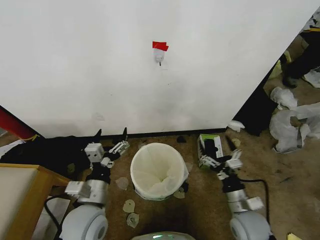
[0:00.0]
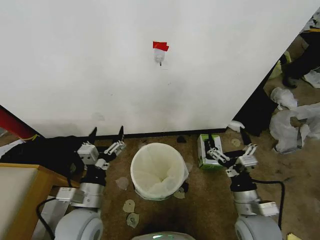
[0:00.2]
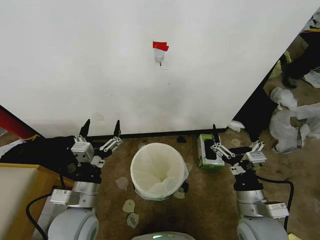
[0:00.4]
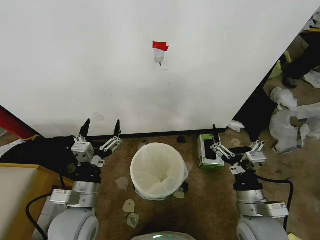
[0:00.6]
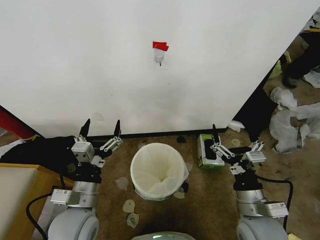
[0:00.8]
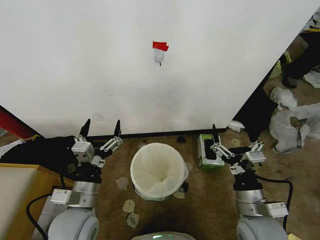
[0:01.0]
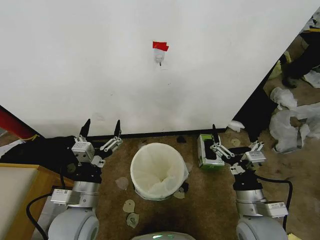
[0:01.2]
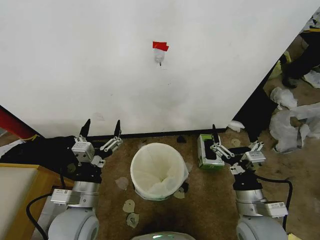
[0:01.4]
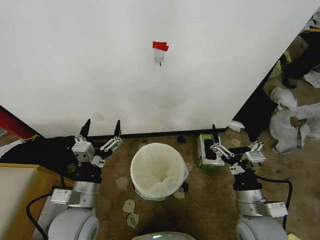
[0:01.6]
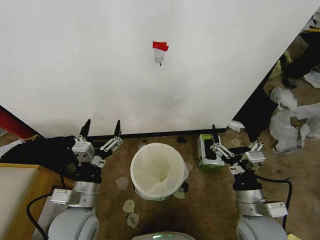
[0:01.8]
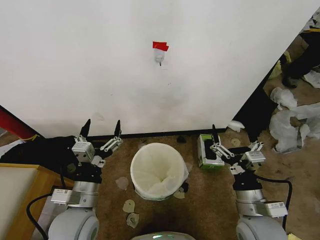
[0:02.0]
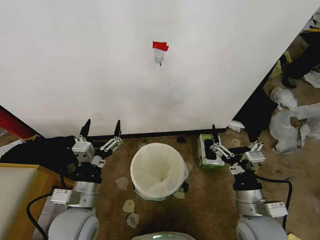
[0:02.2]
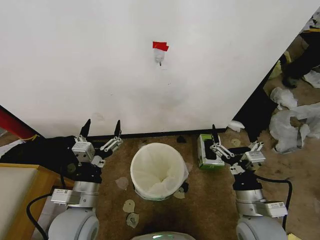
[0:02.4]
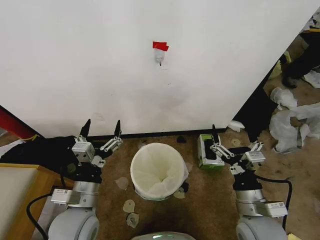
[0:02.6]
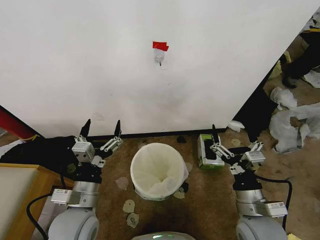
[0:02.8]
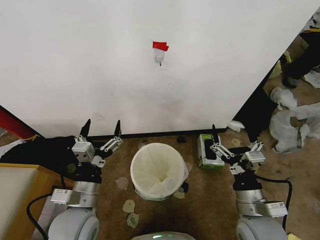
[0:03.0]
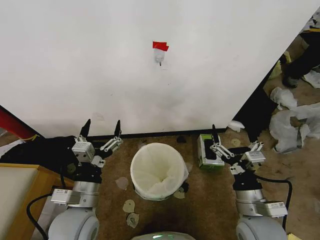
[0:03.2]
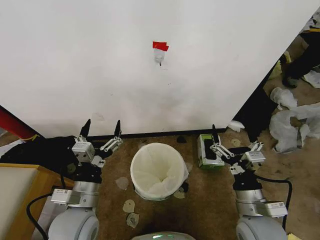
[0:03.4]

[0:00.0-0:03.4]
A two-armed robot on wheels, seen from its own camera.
Task of the whole recording: Place the garbage bag over the trash bin.
0:00.0 to 0:01.6: The right gripper moves upward, approximately 5 cm.
0:01.6 to 0:03.4: Both grippers stay put.

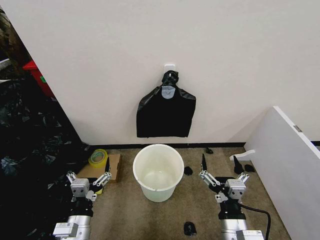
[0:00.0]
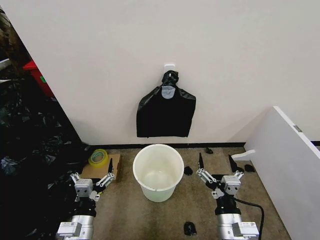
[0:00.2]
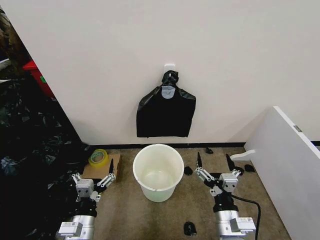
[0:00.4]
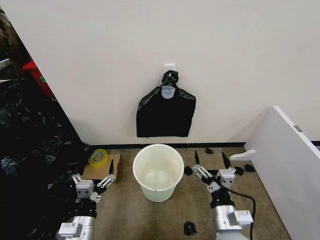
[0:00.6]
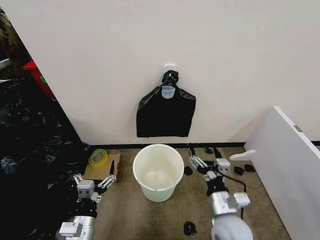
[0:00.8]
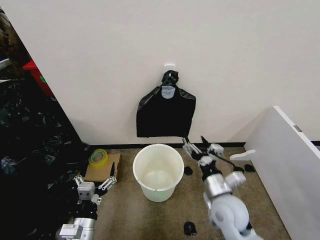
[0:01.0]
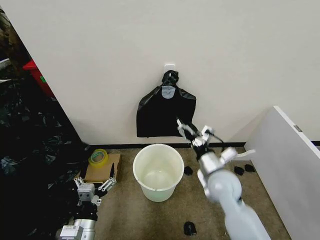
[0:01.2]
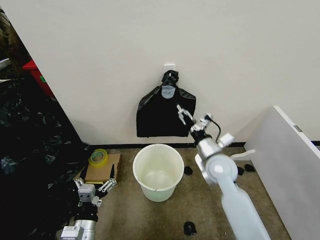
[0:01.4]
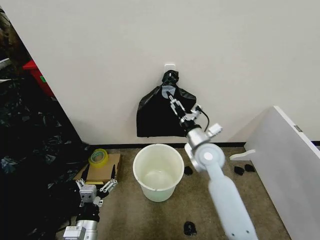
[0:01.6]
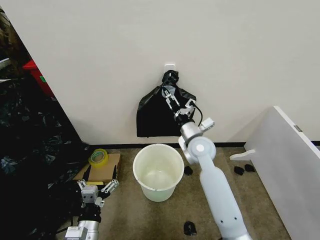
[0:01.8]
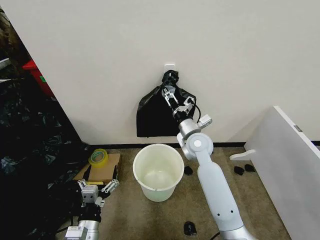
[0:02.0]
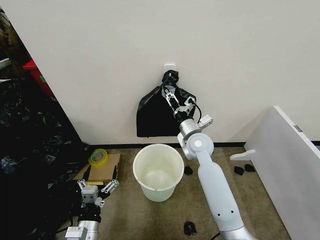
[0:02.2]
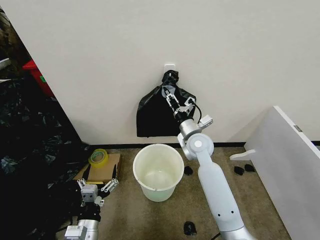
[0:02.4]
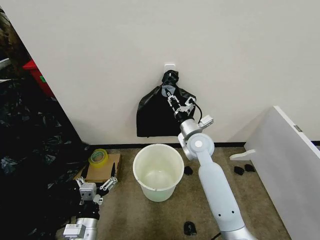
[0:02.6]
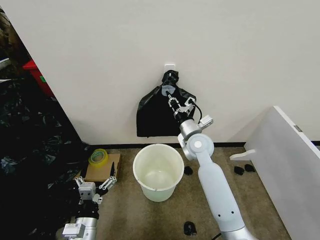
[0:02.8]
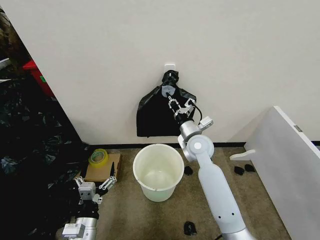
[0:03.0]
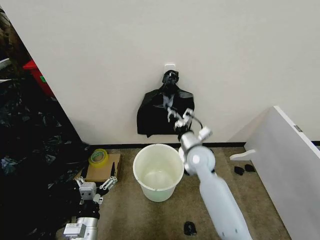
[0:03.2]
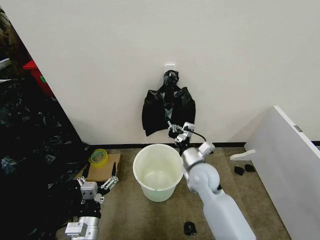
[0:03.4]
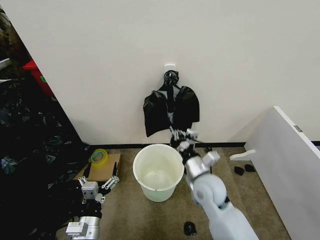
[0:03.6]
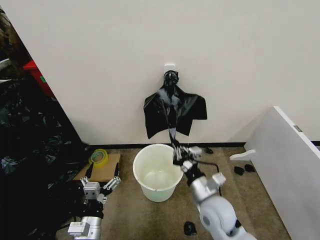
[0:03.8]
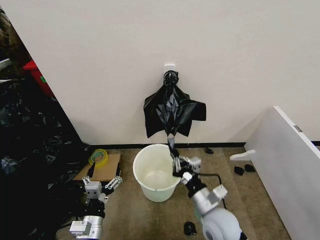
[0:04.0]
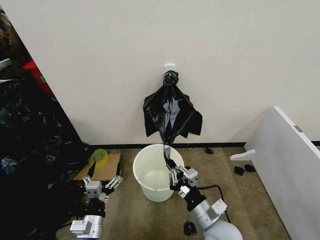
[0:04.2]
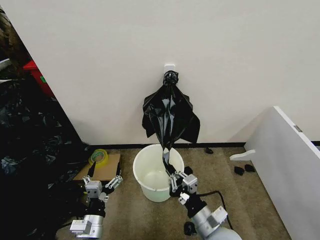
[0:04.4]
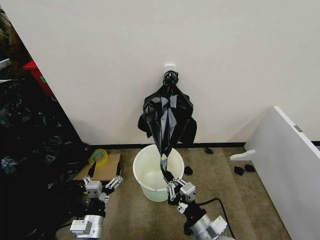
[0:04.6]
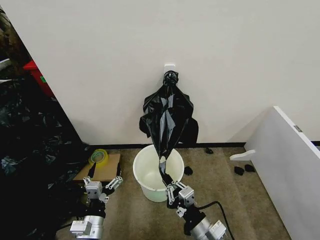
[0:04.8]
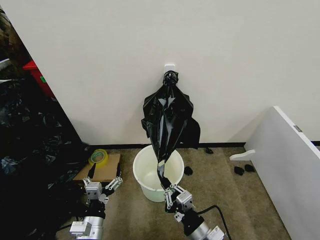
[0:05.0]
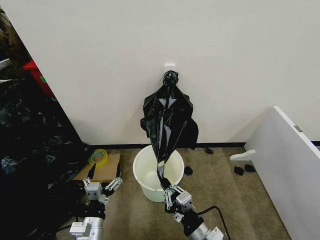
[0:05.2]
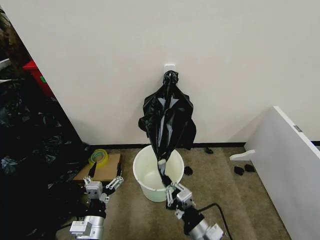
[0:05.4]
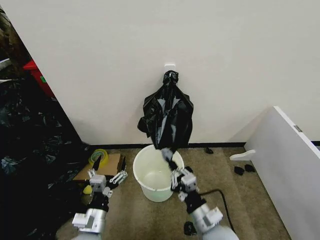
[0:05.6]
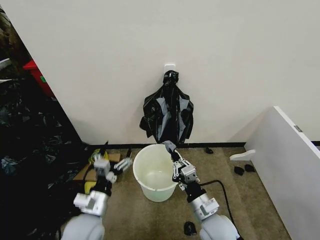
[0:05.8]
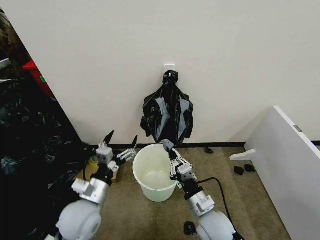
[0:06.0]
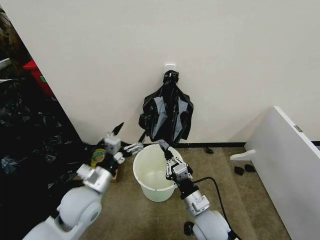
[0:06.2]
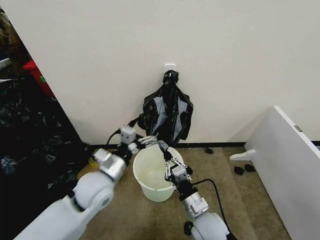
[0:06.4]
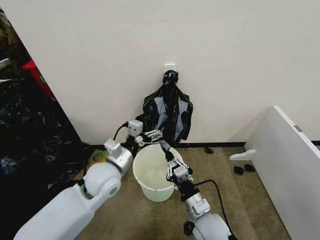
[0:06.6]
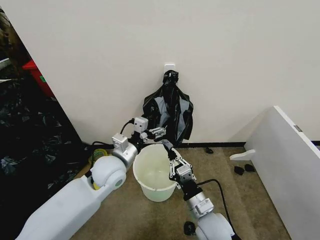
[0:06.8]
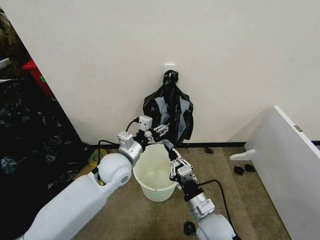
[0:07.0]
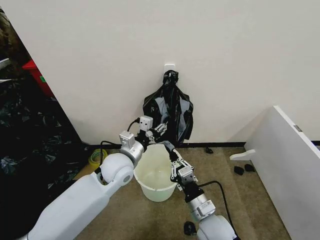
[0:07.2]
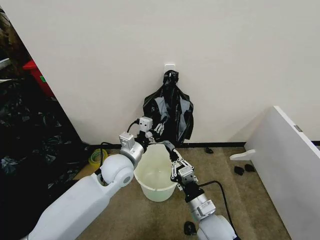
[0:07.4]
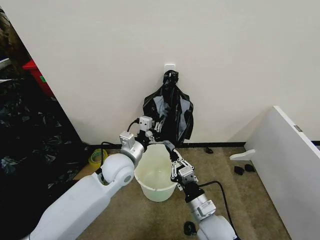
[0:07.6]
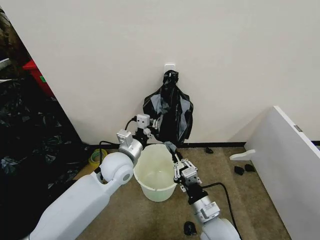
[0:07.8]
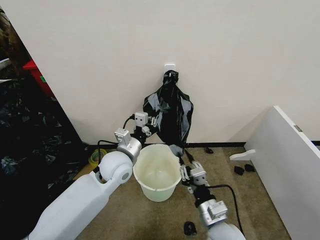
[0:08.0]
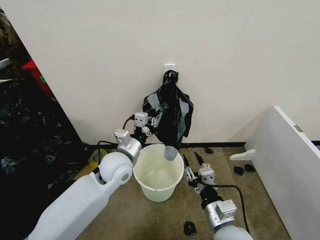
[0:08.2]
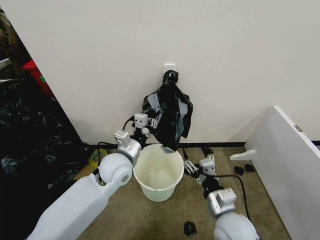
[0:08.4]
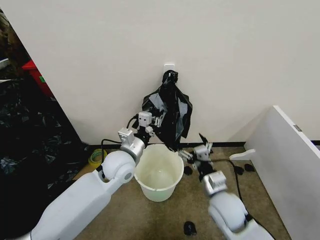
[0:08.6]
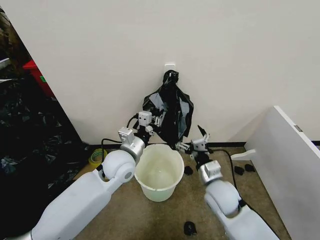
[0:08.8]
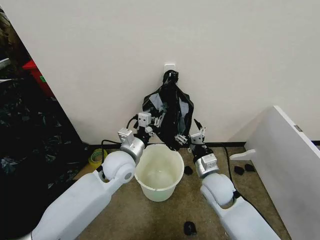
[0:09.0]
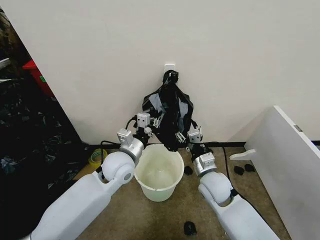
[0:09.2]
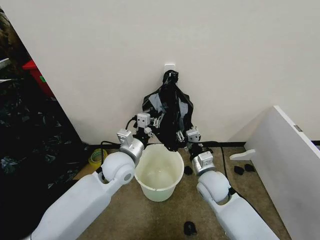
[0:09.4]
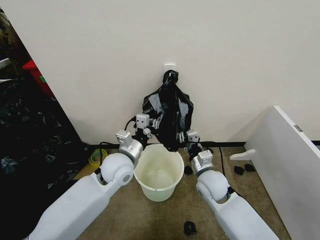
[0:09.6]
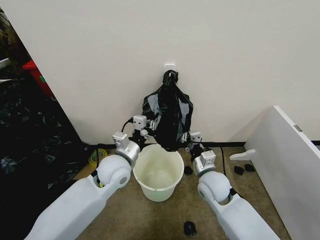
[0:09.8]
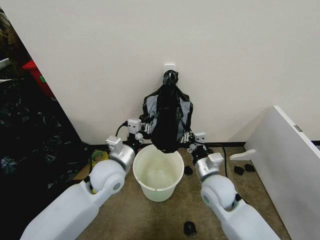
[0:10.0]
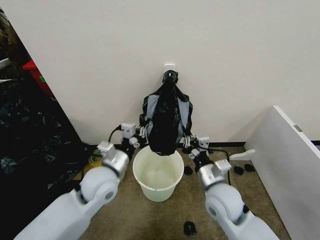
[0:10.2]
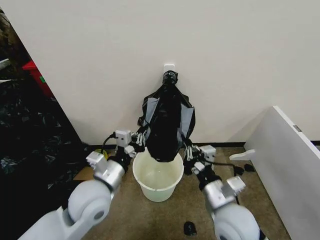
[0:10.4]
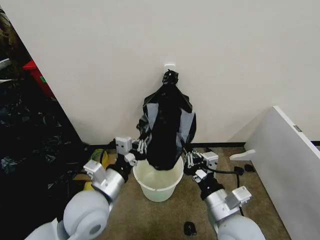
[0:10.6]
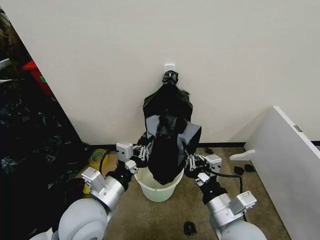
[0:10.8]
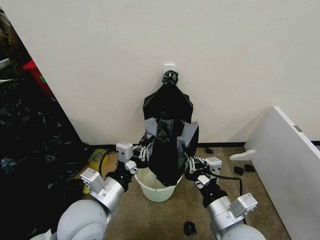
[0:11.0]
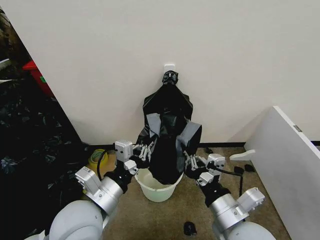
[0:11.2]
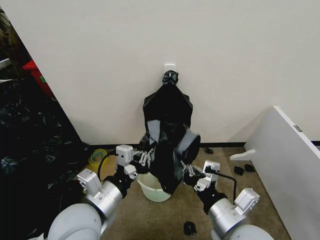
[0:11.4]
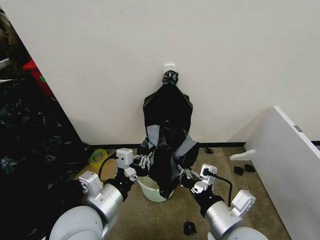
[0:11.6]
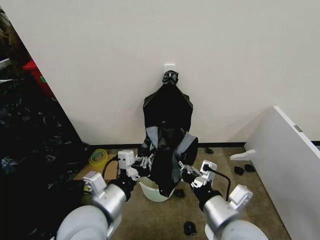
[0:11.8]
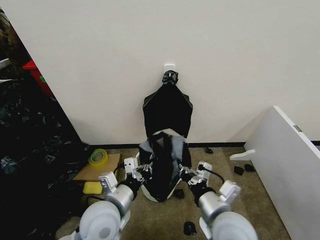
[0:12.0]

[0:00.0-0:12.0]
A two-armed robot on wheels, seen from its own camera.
Task of the whole recording: Place the garbage bag over the trash bin.
0:01.6 to 0:03.0: The right gripper closes up.
0:03.0 to 0:04.4: The right gripper is displaced backward by some 25 cm.
0:04.4 to 0:06.0: The left gripper travels upward and forward by roughly 10 cm; the right gripper is displaced forward by approximately 5 cm.
0:06.0 to 0:07.6: The left gripper goes some 15 cm forward and to the right, and closes.
0:07.6 to 0:09.0: The right gripper goes about 10 cm forward, and opens up.
0:09.0 to 0:10.4: The left gripper shifts about 10 cm backward. The right gripper travels backward and upward by approximately 10 cm, and closes up.
0:10.4 to 0:12.0: The left gripper ends up some 5 cm from where it was.

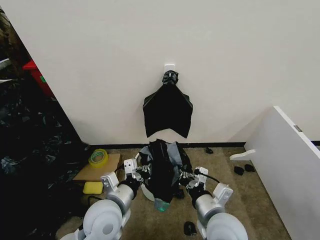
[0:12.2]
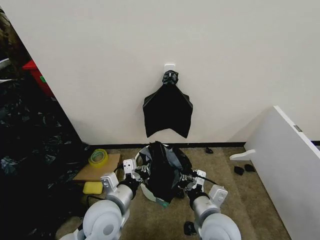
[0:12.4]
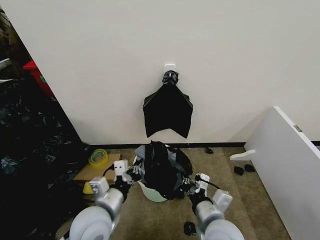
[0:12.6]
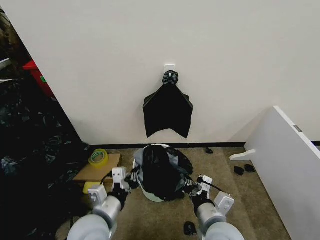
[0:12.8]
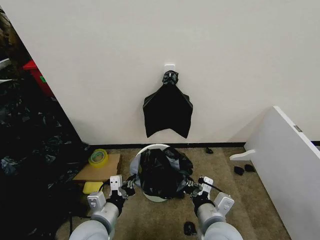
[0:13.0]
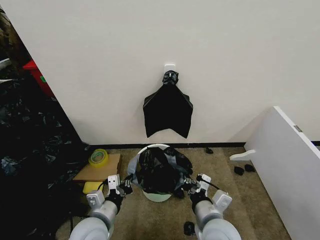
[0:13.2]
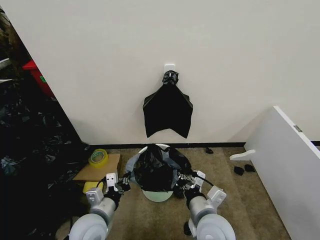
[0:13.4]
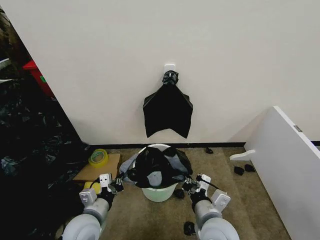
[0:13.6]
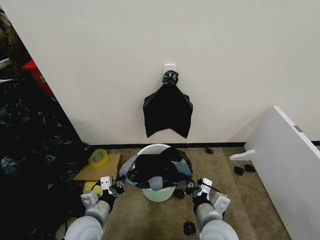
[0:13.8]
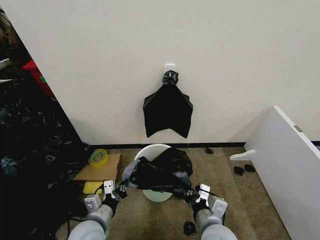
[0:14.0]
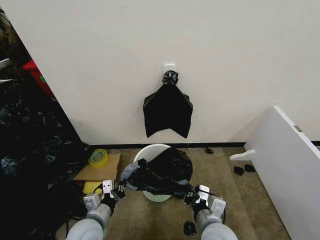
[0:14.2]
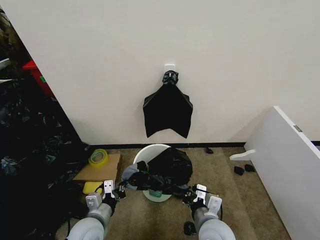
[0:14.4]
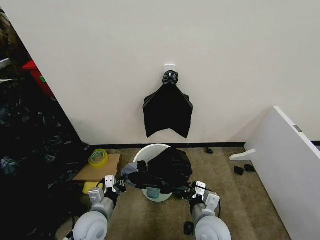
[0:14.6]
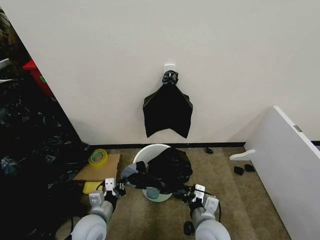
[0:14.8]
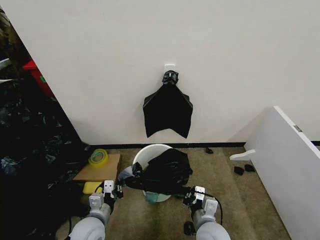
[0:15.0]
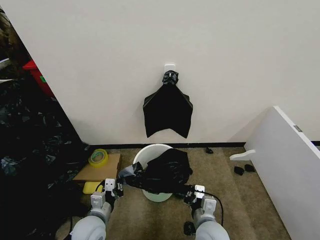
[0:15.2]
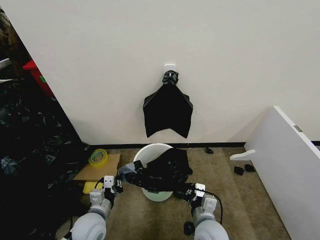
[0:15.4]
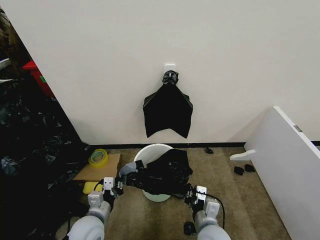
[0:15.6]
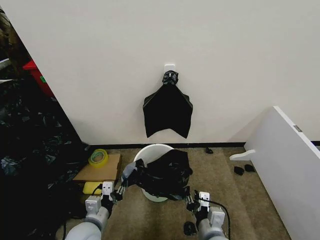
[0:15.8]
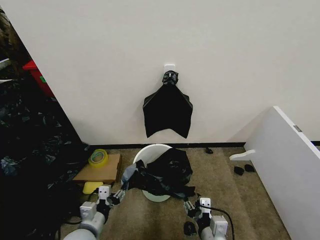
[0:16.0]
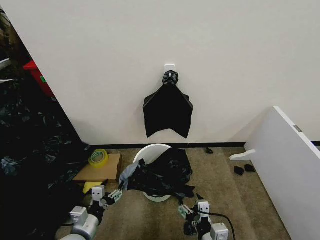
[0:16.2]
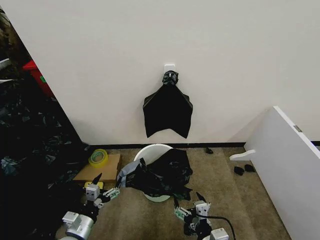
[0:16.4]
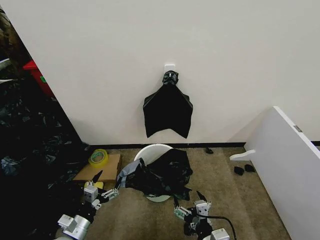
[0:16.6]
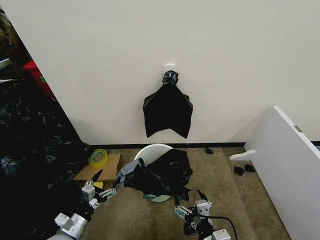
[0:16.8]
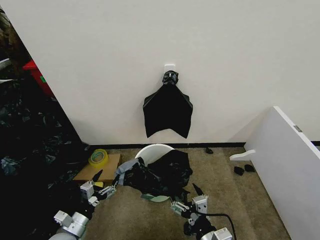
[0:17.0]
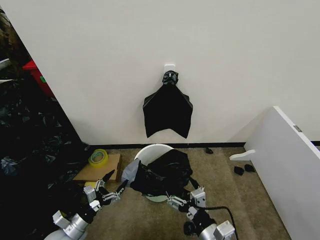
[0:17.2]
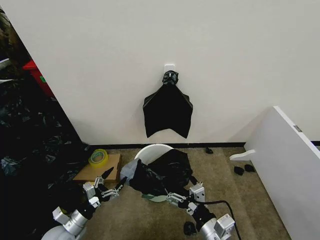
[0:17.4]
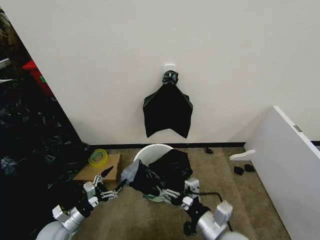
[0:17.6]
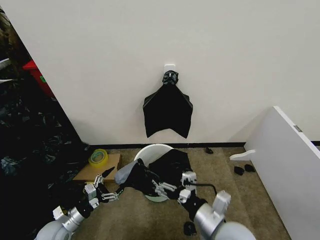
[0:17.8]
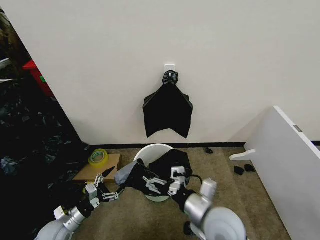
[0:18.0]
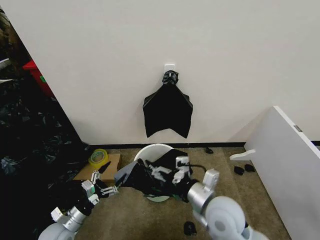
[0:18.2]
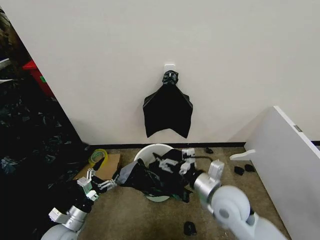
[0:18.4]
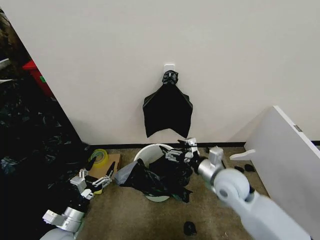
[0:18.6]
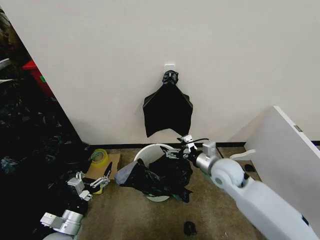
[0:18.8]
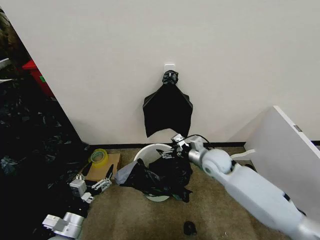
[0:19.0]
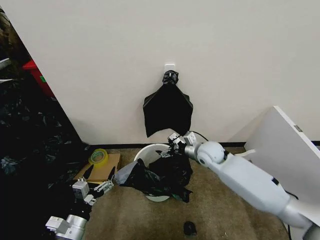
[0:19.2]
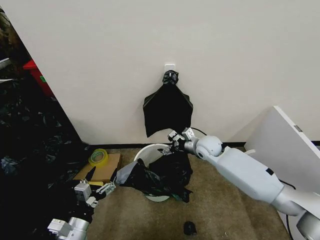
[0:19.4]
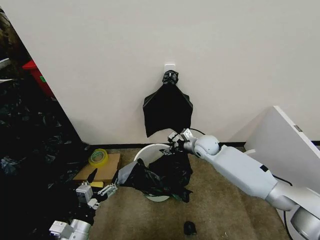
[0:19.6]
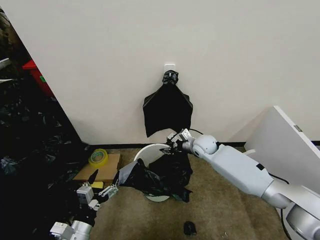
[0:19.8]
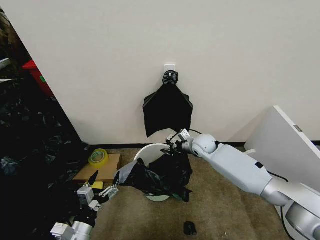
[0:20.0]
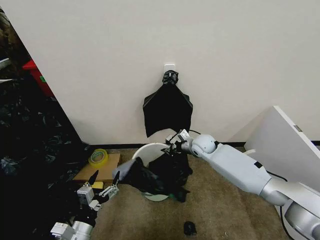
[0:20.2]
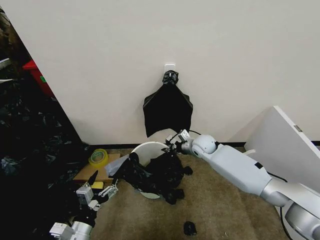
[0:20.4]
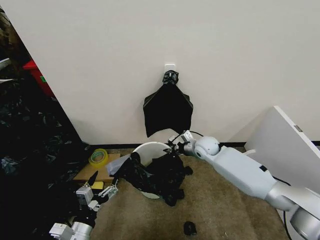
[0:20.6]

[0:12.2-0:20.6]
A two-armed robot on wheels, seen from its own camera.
Task of the whole recording: Place the garbage bag over the trash bin.
0:12.2 to 0:13.6: The left gripper travels to the left and downward by roughly 10 cm.
0:13.6 to 0:15.0: The right gripper goes about 5 cm downward.
0:15.0 to 0:16.4: The left gripper is displaced to the left and backward by roughly 5 cm, and opens its fingers, while the right gripper moves backward, some 10 cm, and opens up.
0:16.4 to 0:17.8: The right gripper shifts roughly 15 cm upward and forward; the left gripper moves to the left and forward, approximately 10 cm.
0:17.8 to 0:19.2: The right gripper is displaced forward by about 25 cm. Meanwhile the left gripper goes roughly 15 cm upward, to the right and backward.
0:19.2 to 0:20.6: The right gripper shifts roughly 5 cm forward, and closes.
